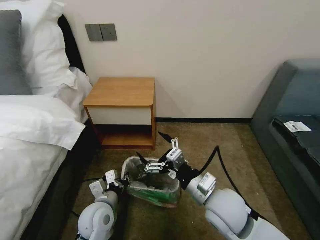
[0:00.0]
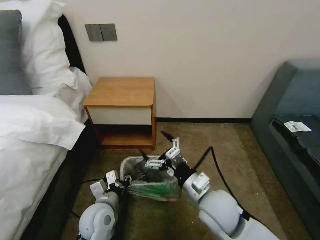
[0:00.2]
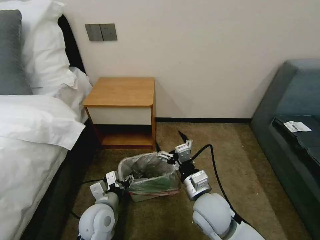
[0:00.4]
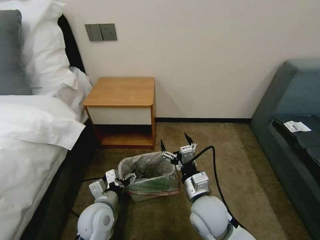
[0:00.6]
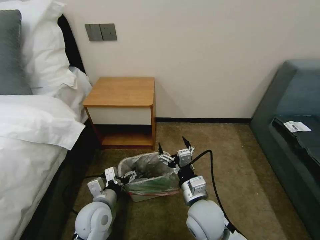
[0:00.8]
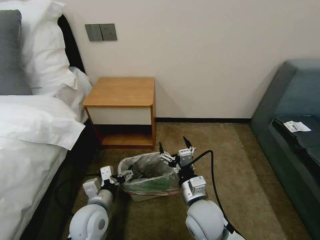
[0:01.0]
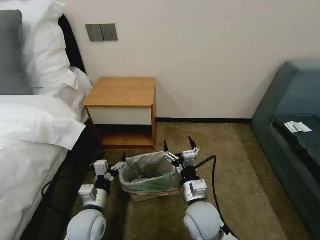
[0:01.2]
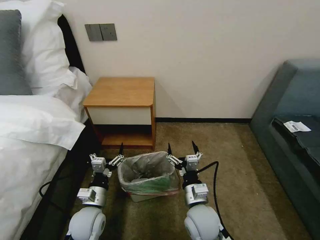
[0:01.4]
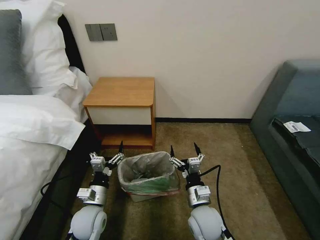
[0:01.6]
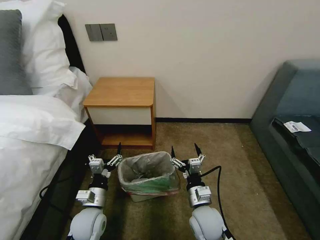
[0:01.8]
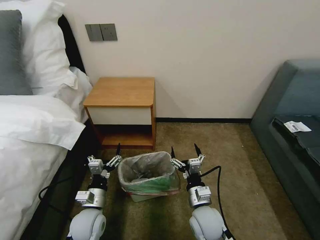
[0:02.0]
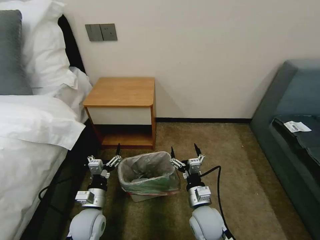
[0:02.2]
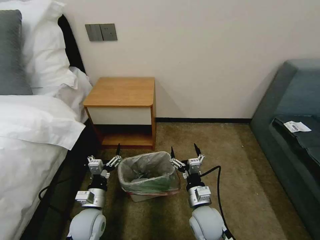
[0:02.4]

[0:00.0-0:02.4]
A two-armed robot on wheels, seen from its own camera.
Task of the whole recording: Pick up the garbage bag from the table and place it over the trash can.
0:00.0 to 0:01.2: The left gripper opens its fingers. The right gripper shifts about 10 cm downward.
0:01.2 to 0:02.4: The right gripper is displaced downward by about 5 cm.
